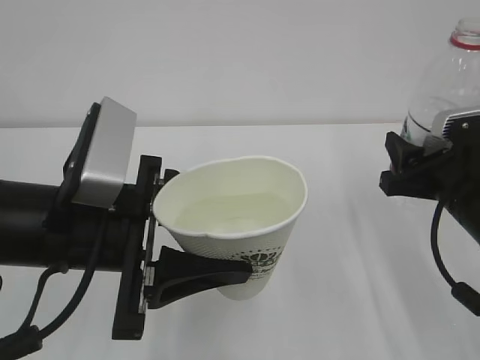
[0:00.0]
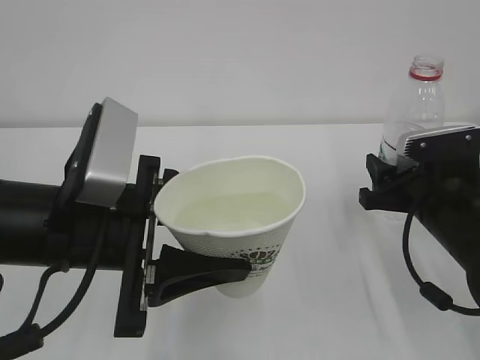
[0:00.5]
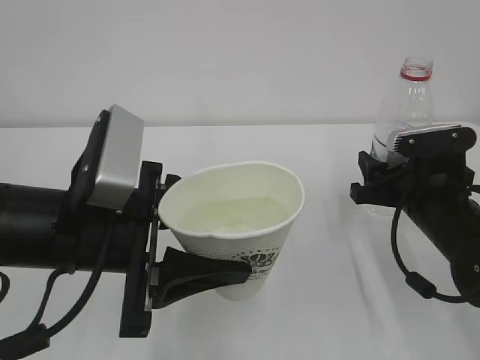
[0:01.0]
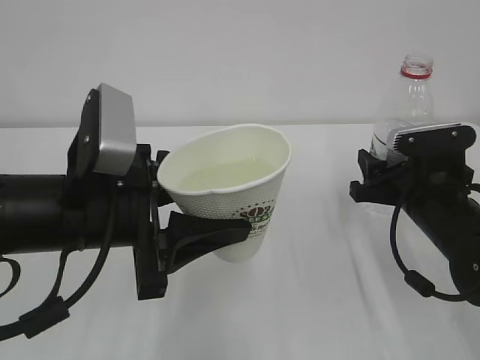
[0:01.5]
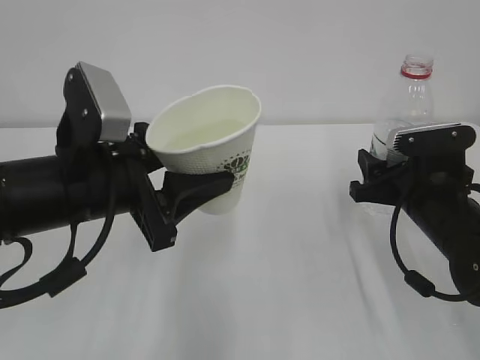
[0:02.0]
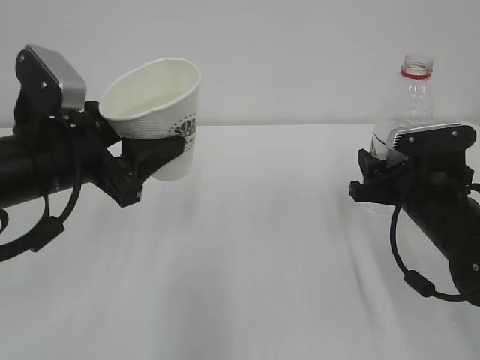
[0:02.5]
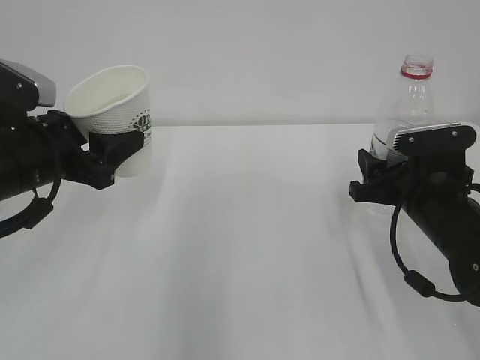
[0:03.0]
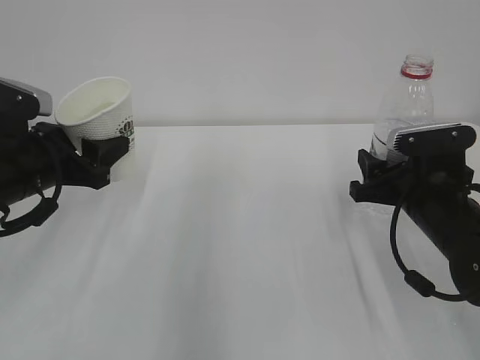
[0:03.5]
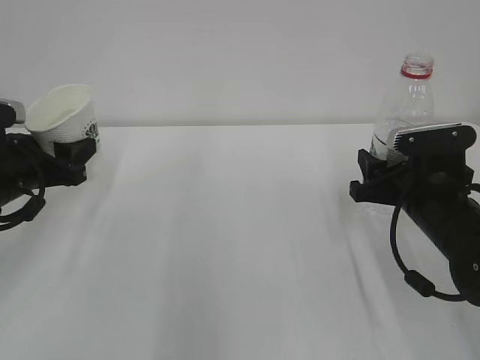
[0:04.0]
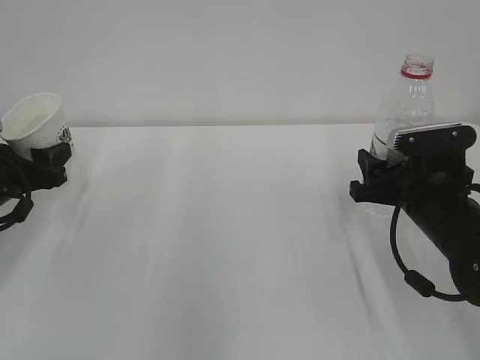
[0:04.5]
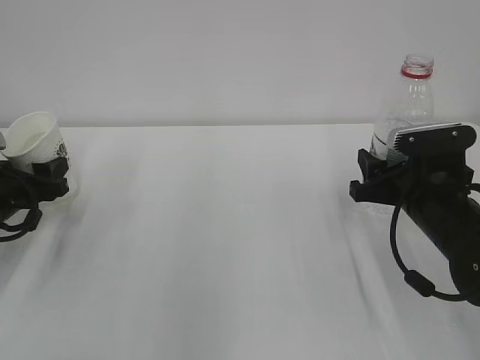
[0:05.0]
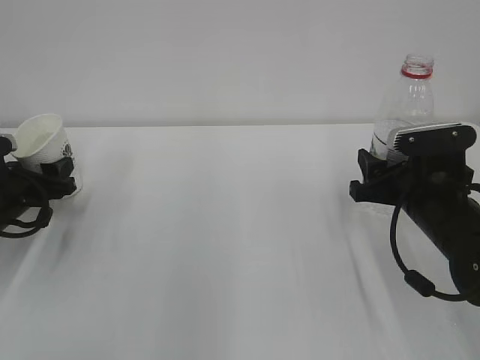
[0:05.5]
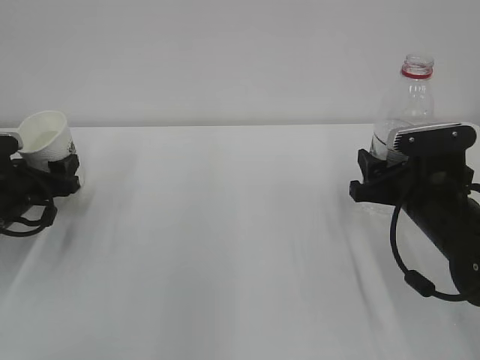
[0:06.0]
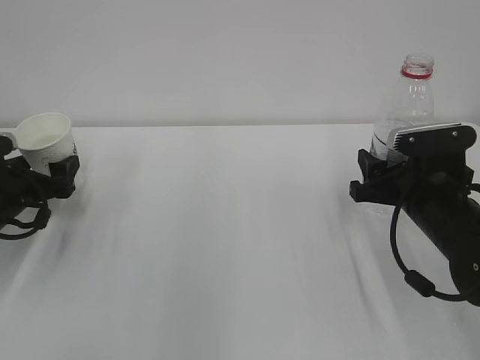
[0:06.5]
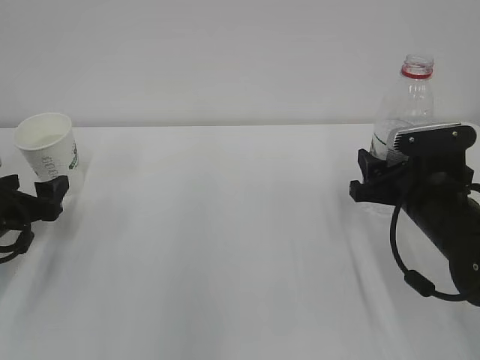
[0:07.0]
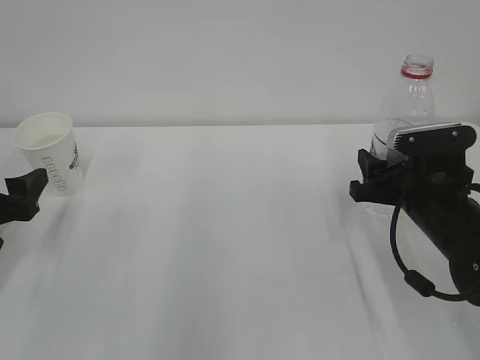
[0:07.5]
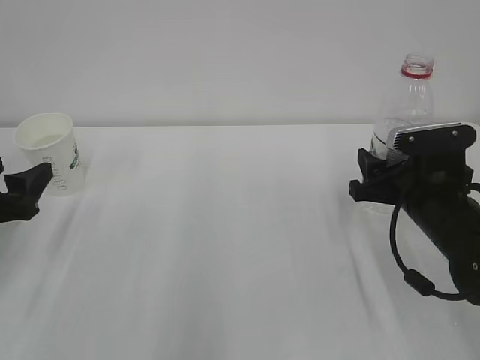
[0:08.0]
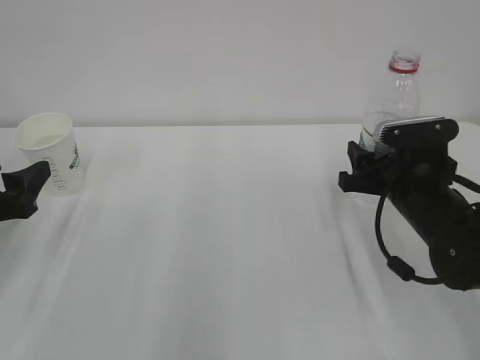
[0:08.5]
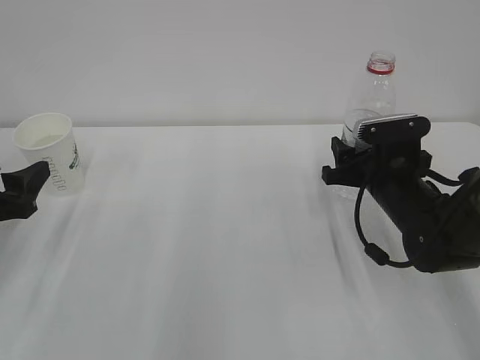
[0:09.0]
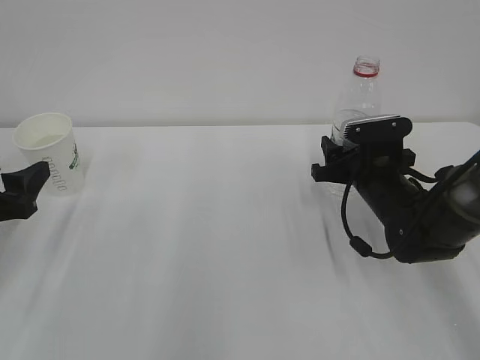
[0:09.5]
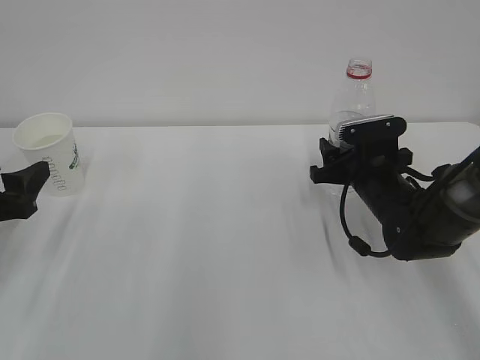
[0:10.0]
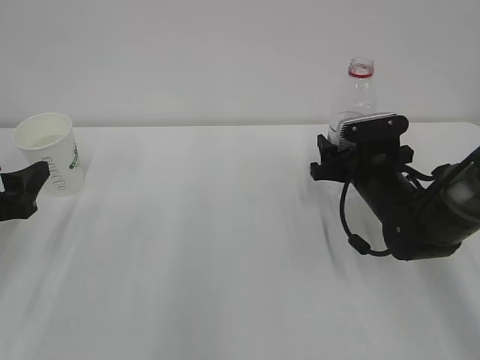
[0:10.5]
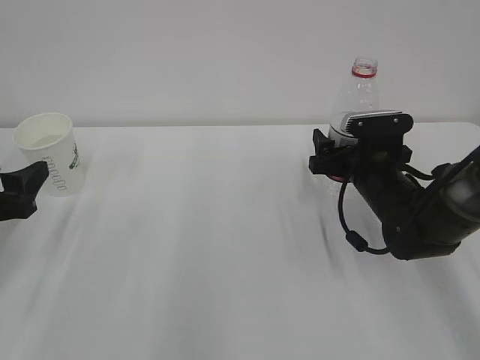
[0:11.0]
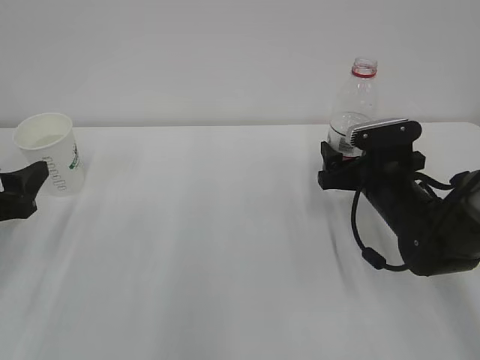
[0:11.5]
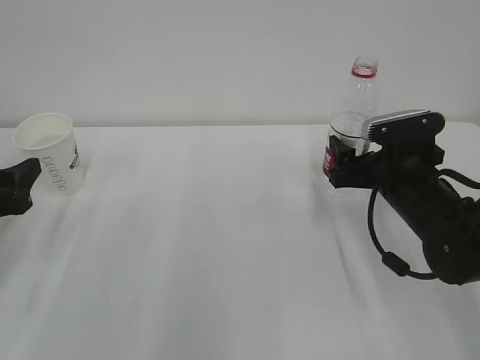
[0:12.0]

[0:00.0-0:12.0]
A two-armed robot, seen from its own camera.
0:00.0 to 0:02.0: The right gripper shifts by about 5 cm.
0:02.0 to 0:04.0: The left gripper travels to the left, forward and downward by about 20 cm.
0:04.0 to 0:06.0: The left gripper moves downward, approximately 5 cm, and opens.
0:06.0 to 0:08.0: The left gripper shifts approximately 10 cm backward and upward.
0:08.0 to 0:10.0: The right gripper moves forward, some 10 cm.
0:10.0 to 0:12.0: The right gripper changes place by roughly 5 cm, and opens up.

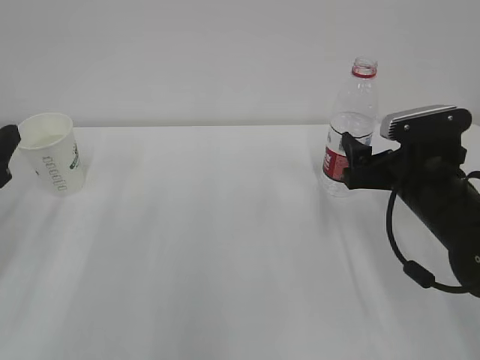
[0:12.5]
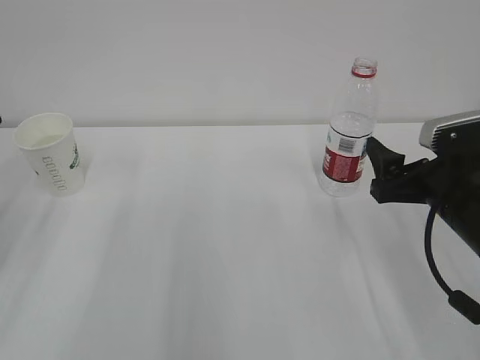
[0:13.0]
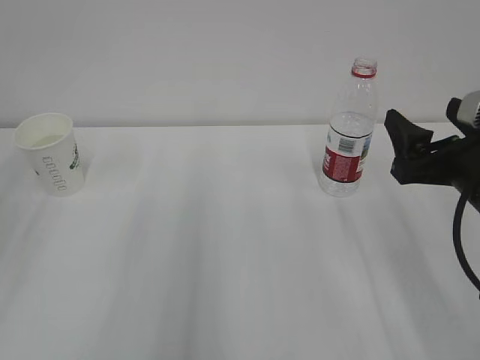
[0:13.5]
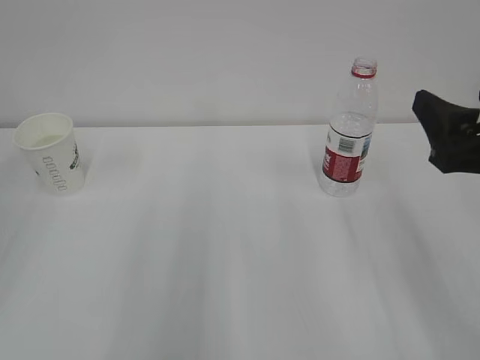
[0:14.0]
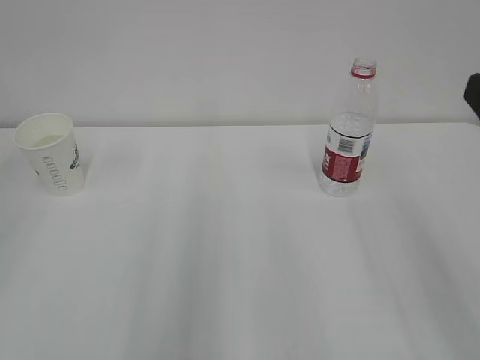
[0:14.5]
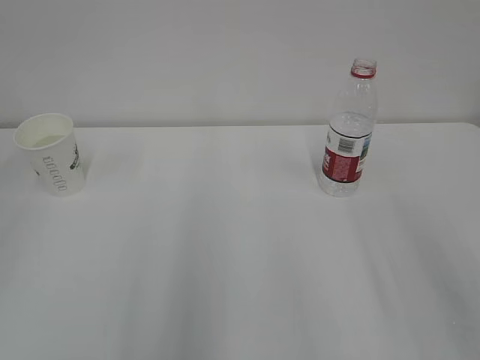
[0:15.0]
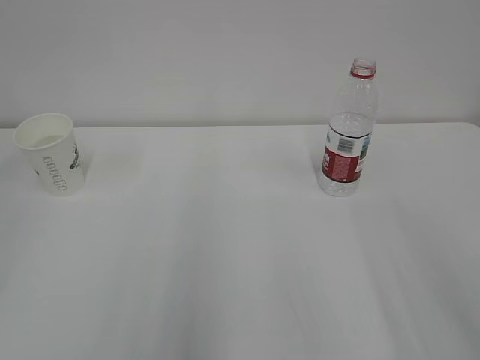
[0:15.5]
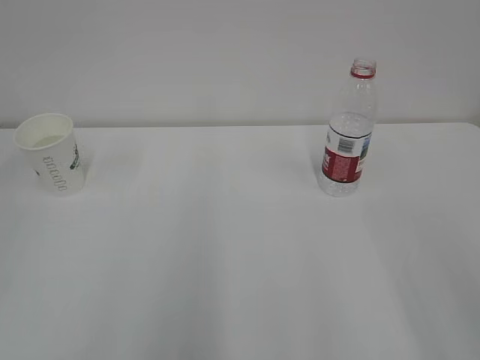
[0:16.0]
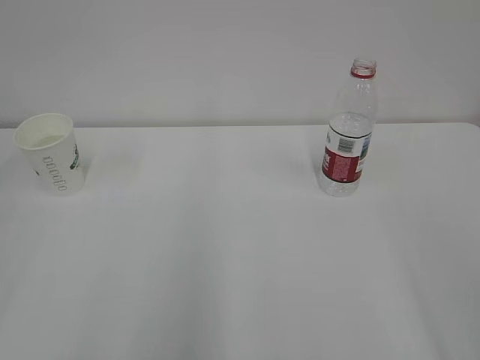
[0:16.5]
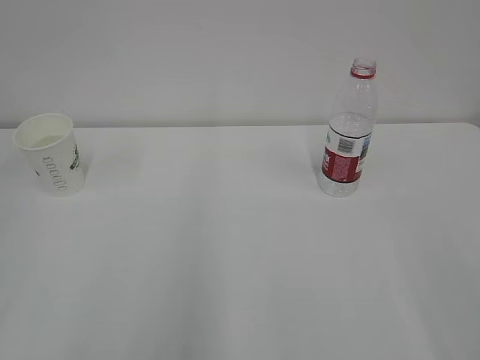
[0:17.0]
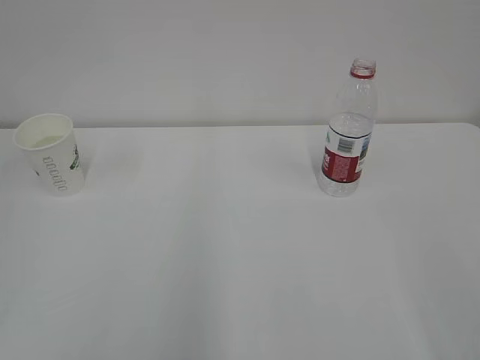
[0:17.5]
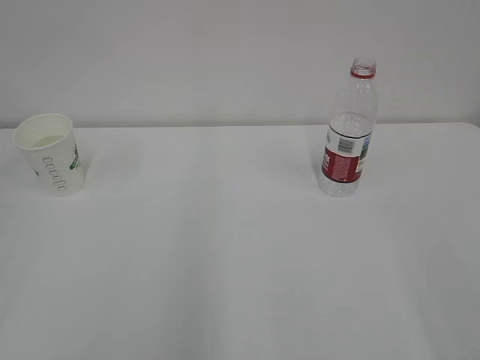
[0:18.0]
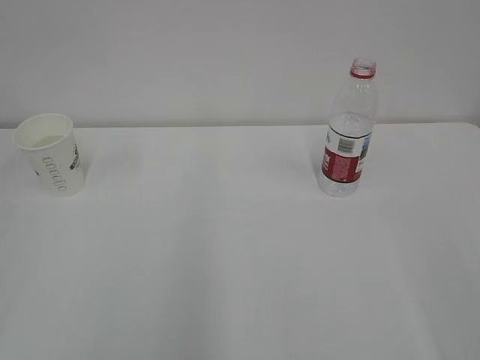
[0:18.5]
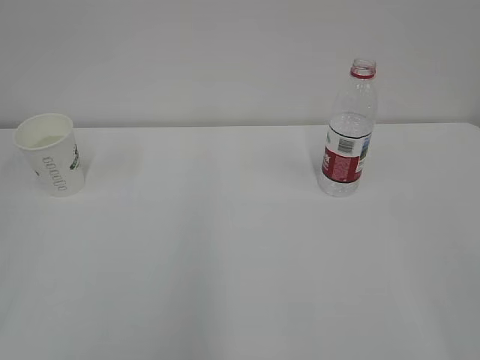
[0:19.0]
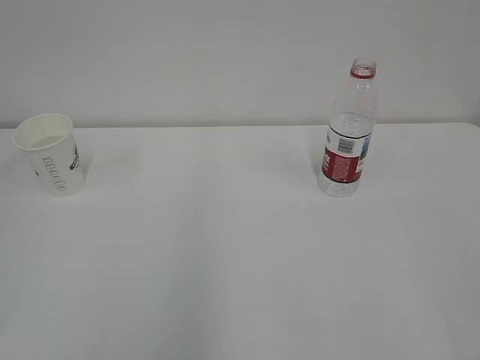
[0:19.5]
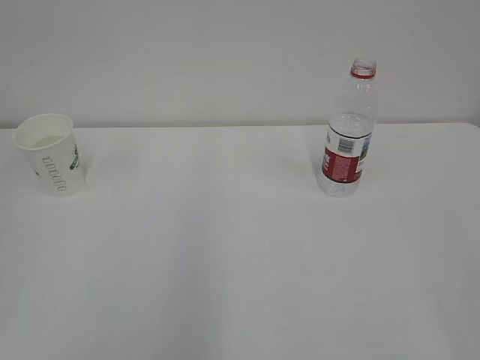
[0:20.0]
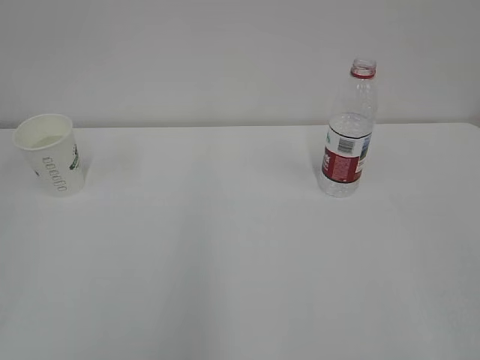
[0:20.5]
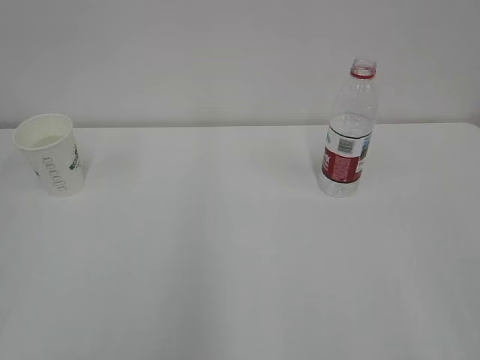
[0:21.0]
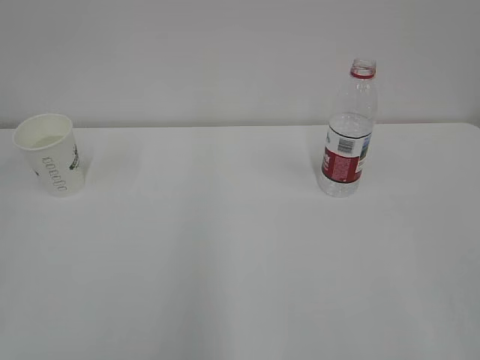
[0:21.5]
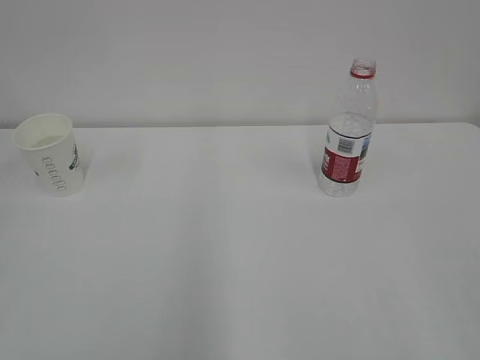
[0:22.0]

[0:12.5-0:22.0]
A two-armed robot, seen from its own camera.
0:12.5 to 0:14.5: The right gripper travels backward and upward by some 20 cm.
